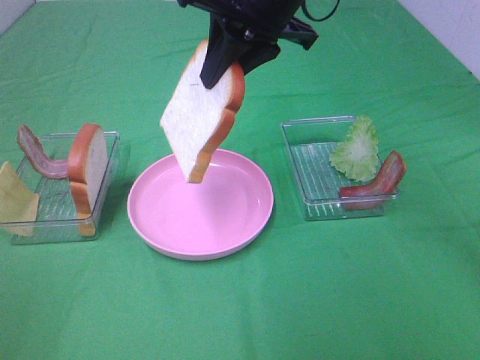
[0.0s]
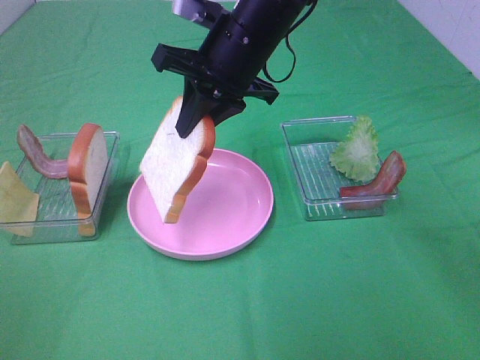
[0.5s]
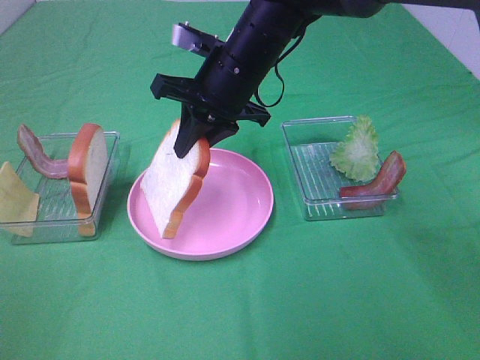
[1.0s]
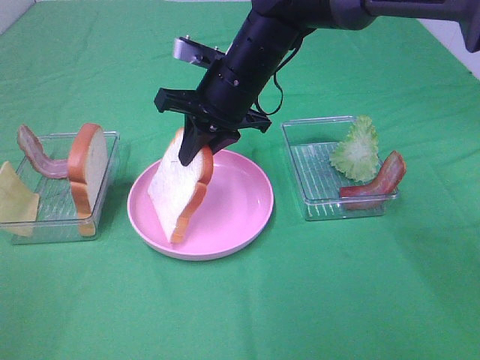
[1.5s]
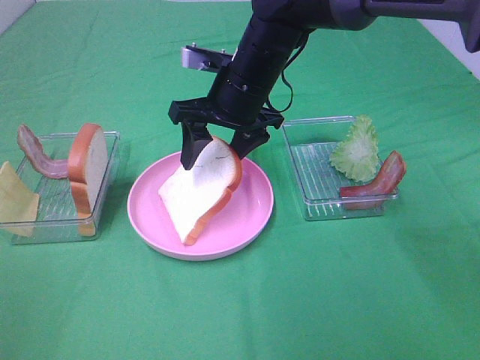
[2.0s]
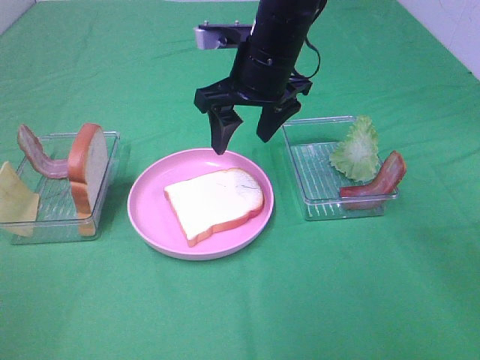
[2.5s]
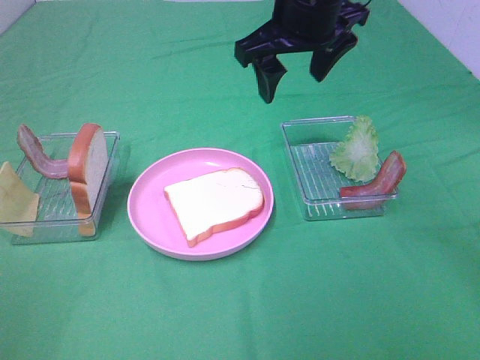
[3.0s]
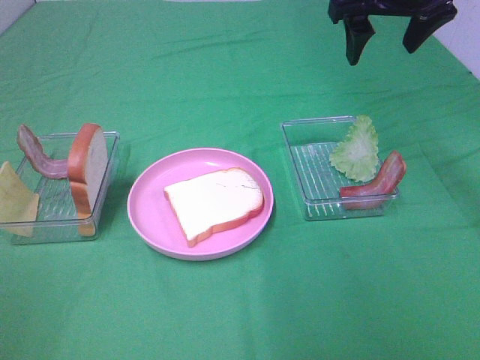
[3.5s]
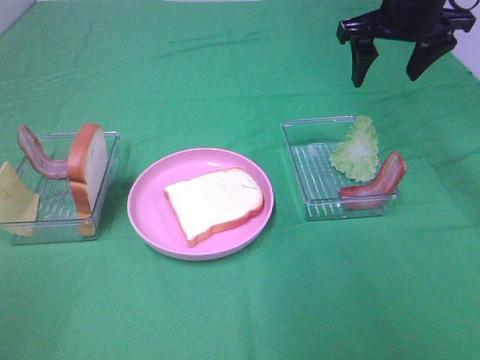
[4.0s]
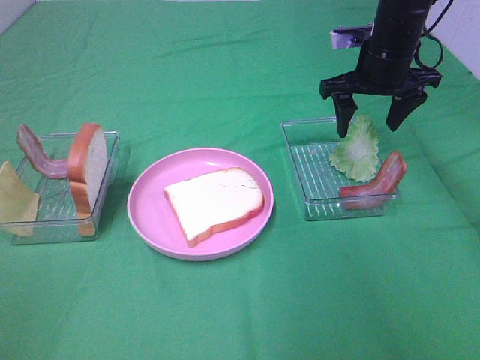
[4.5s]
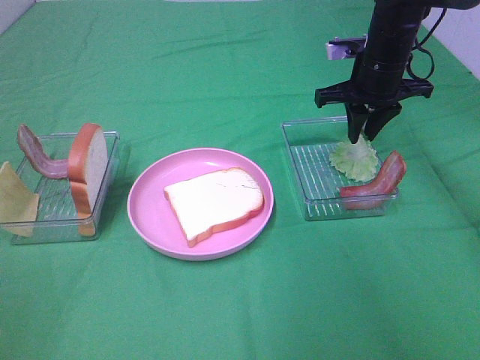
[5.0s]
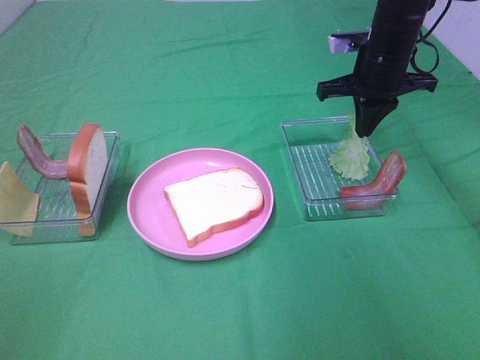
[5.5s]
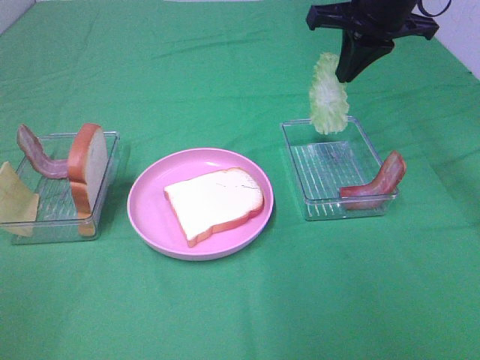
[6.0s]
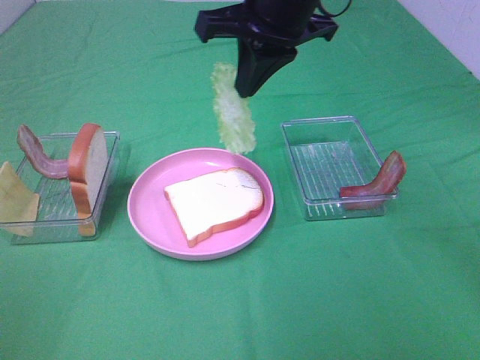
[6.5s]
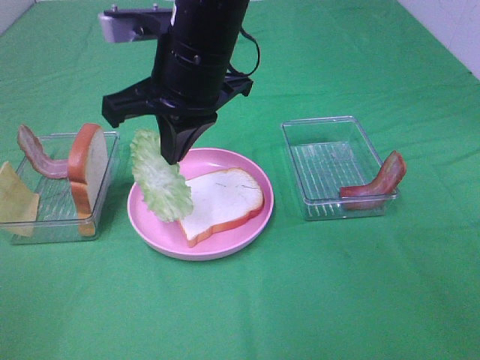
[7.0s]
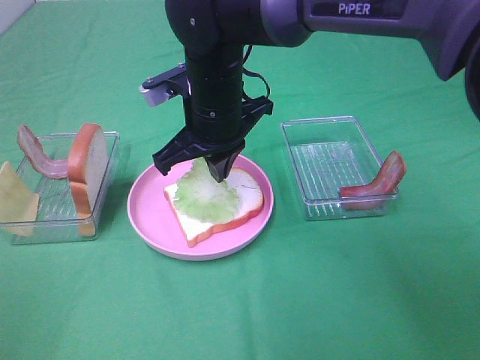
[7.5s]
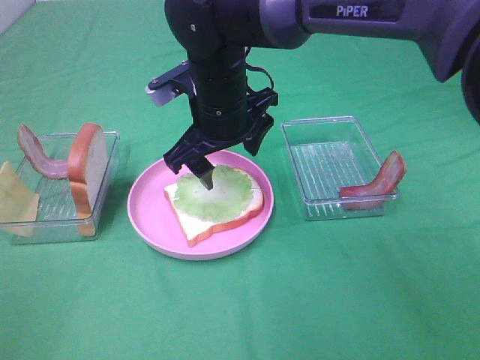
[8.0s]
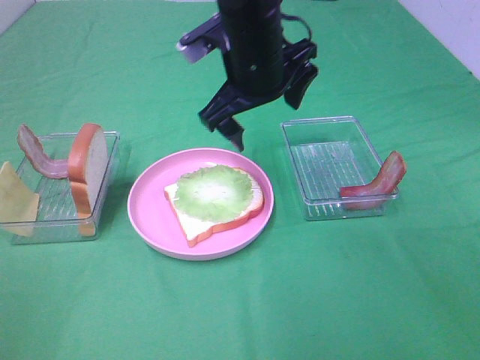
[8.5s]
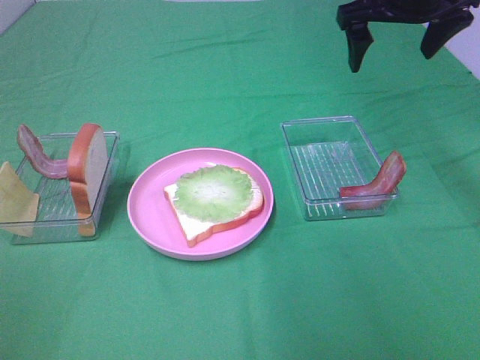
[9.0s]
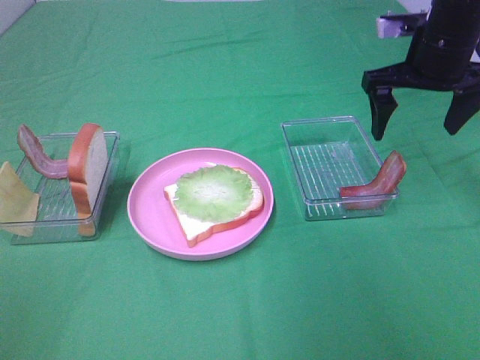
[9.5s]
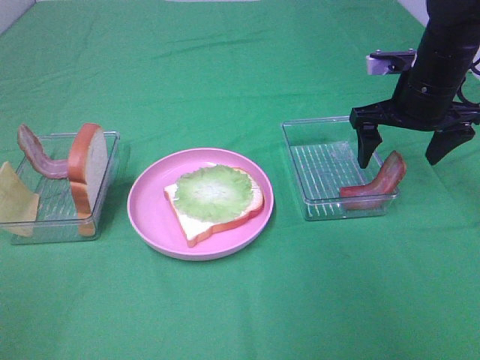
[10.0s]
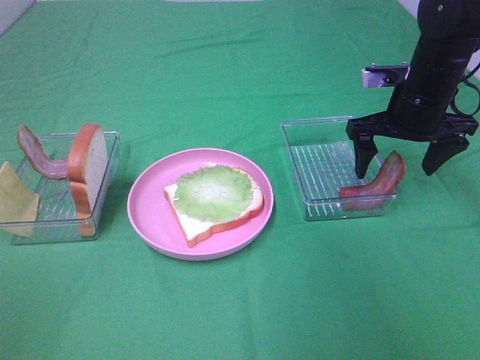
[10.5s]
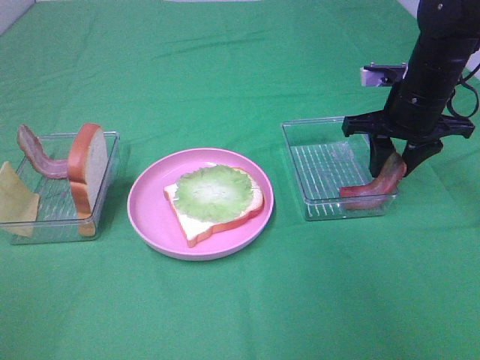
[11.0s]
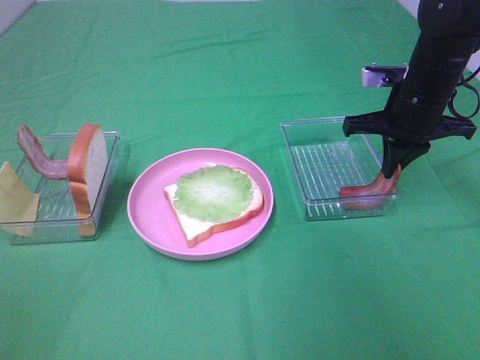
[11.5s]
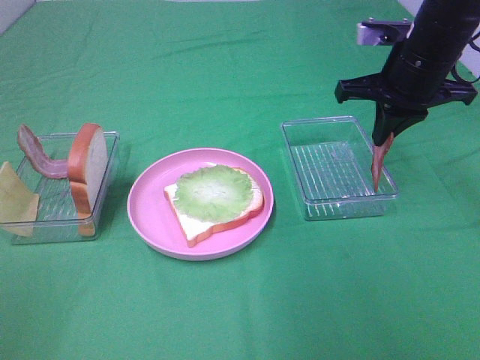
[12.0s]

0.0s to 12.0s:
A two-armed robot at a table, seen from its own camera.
Task of the whole recording: Make sandwiches.
Step, 0.0s to 2.0s: Right hand:place the bread slice on the plate.
Step, 2.5s to 5.0s: Right hand:grab the lettuce slice.
Step, 5.5s to 8.0s: Right hand:place the lettuce slice on the bread slice.
Step, 8.5s to 11.0s: Right hand:grab the bacon.
0.0s to 2.0s: The right gripper shifts approximately 10 cm downward, and opens its fingers.
2.0s to 4.0s: The right gripper is displaced to the right and upward by approximately 20 cm.
4.0s to 6.0s: The right gripper travels downward and back again, approximately 10 cm each way, and closes its fingers.
6.0s to 8.0s: The right gripper heads to the left and downward, covering approximately 20 cm, and opens.
8.0s to 10.0s: The right gripper moves to the right, approximately 25 cm.
10.0s to 12.0s: The right gripper shifts by approximately 5 cm, and closes its fingers.

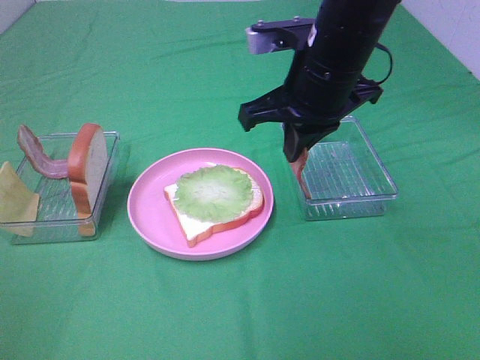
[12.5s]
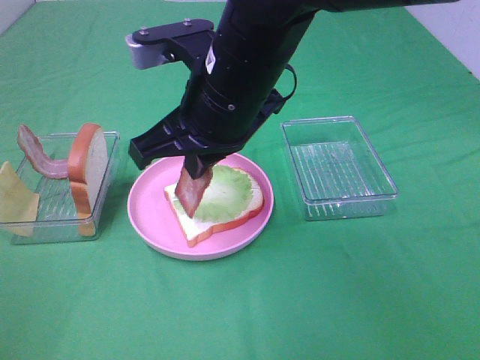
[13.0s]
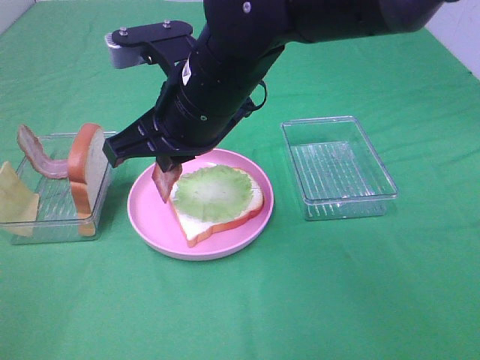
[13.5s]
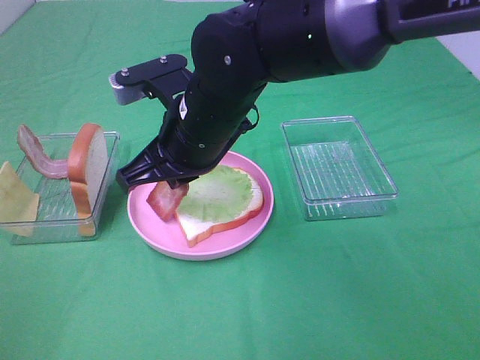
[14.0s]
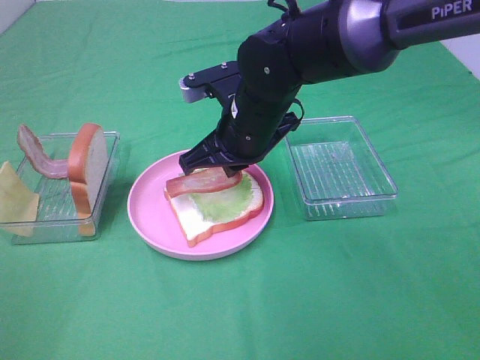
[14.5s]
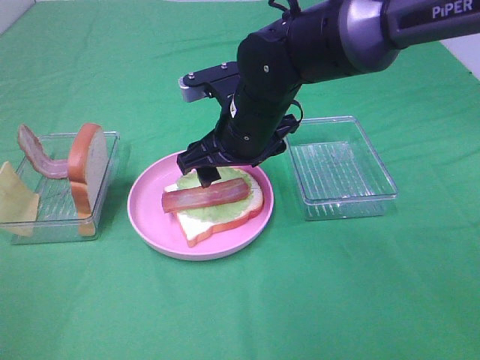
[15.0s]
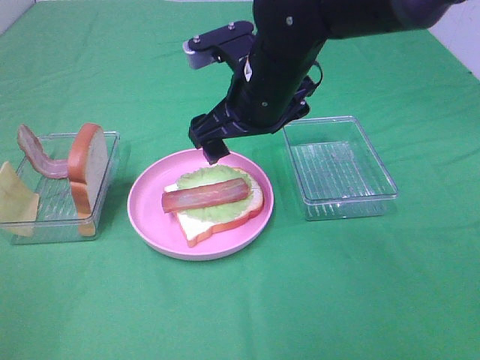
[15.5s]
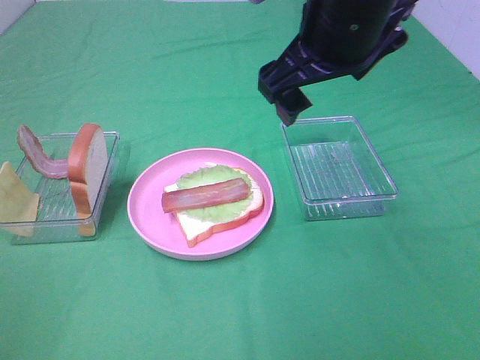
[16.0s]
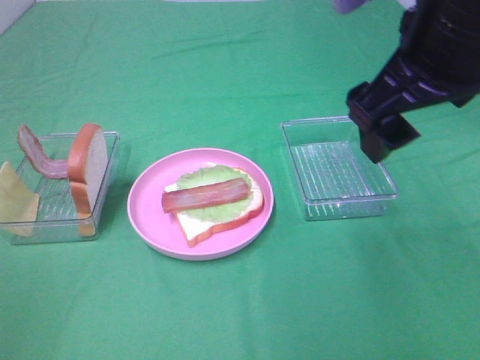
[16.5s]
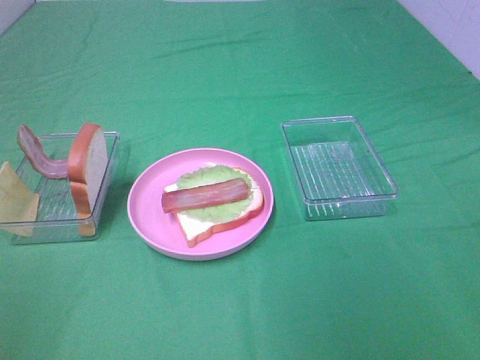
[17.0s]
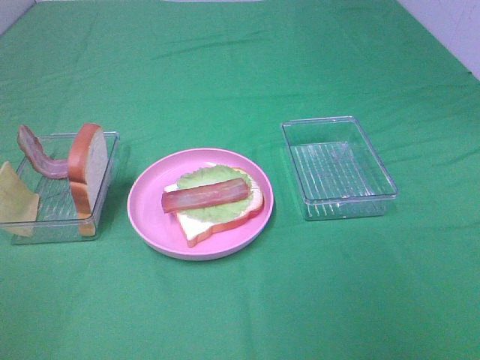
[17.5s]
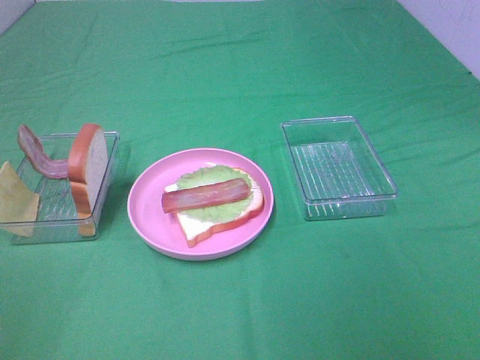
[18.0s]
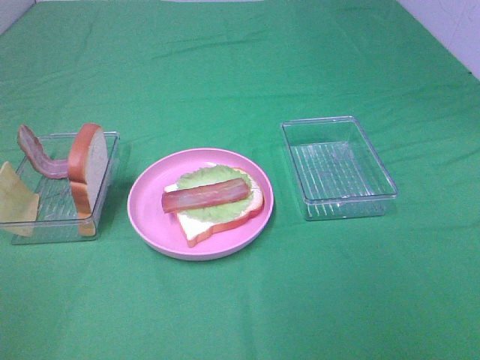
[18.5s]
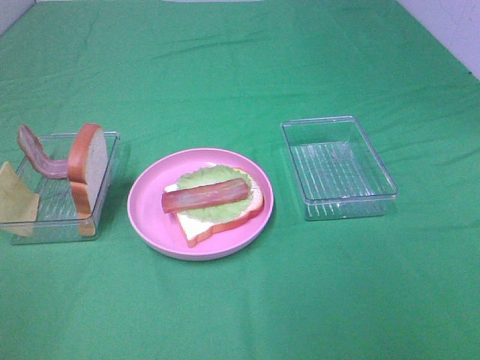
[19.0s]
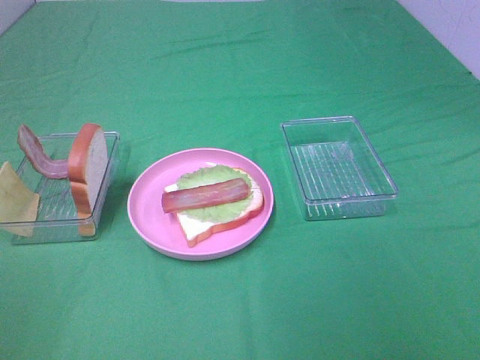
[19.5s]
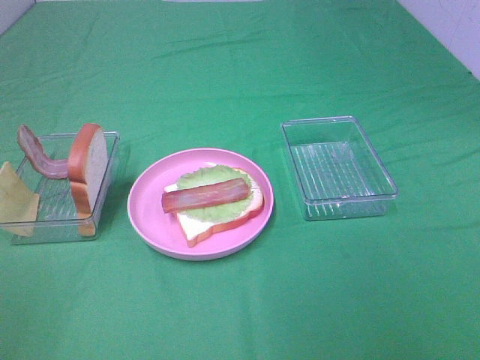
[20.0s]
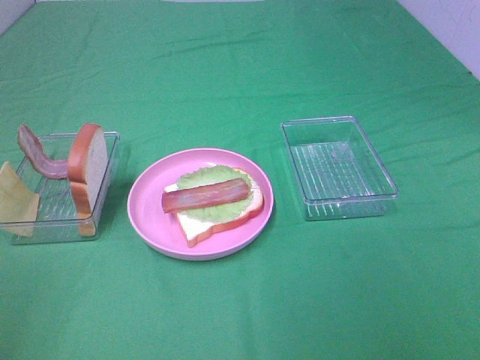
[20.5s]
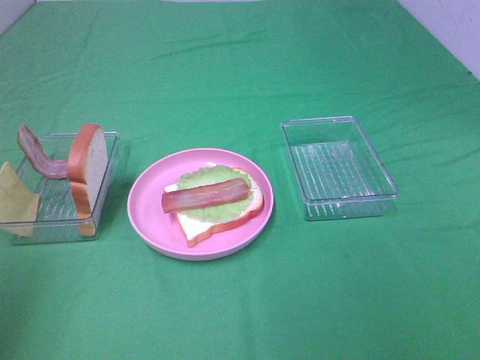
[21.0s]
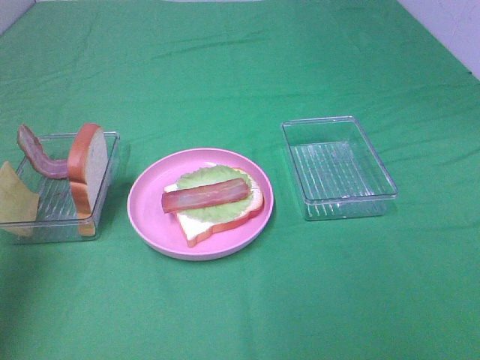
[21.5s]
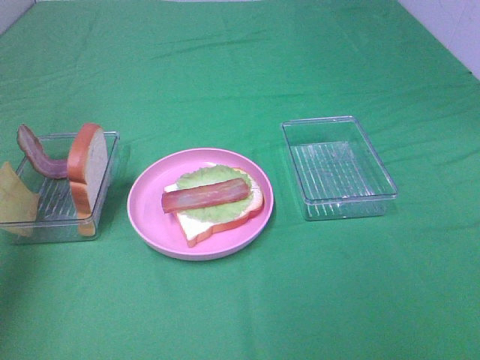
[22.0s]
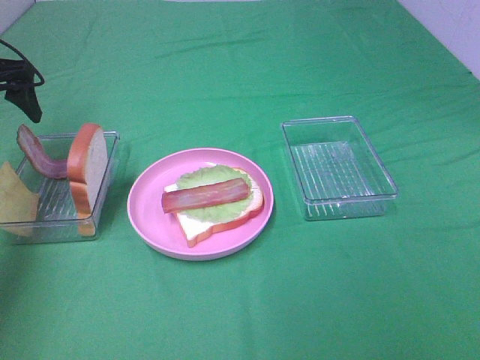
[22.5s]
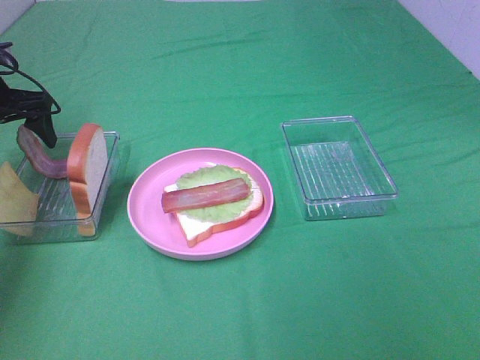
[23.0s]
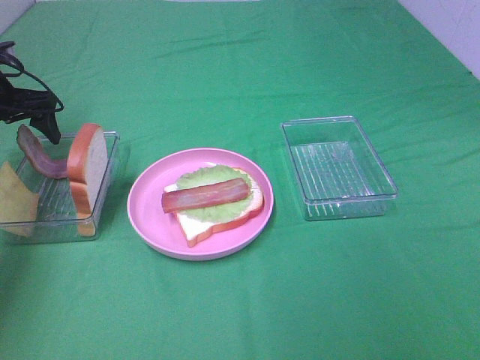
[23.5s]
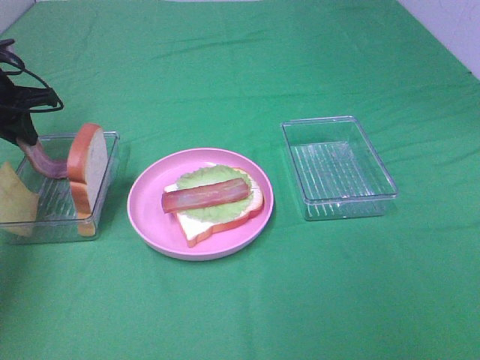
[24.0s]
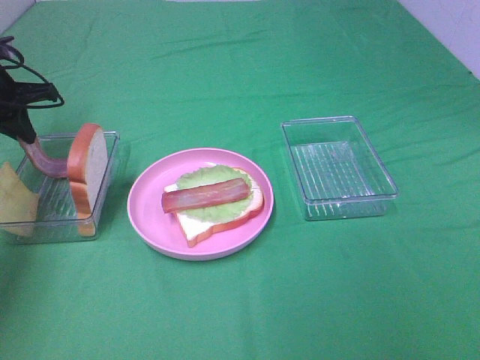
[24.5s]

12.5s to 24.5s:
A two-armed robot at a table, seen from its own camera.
Task of the whole recording: Make sandwiches.
Step, 12.5s to 15.0s: Right hand:place bacon on lettuce slice.
Step, 15.5s to 24.0s: Left hand:grab the bacon.
12.5s to 14.5s: The right gripper moves downward and to the left, approximately 10 cm.
14.5s to 16.5s: The right gripper goes some 25 cm upward, to the right and backward, and opens its fingers.
16.5s to 18.5s: The right gripper shifts about 30 cm backward and to the right.
20.5s to 22.5s: The left gripper goes roughly 40 cm forward.
22.5s to 24.5s: The left gripper closes.

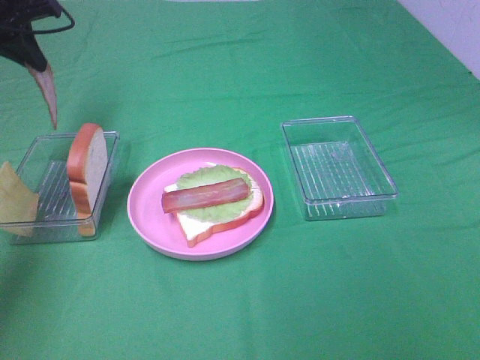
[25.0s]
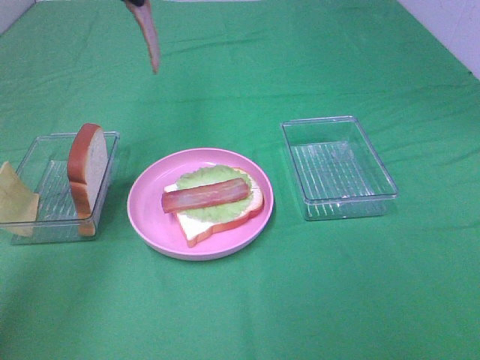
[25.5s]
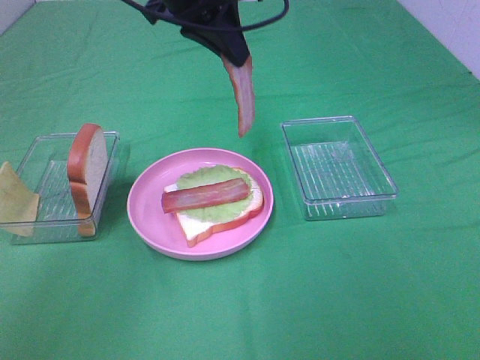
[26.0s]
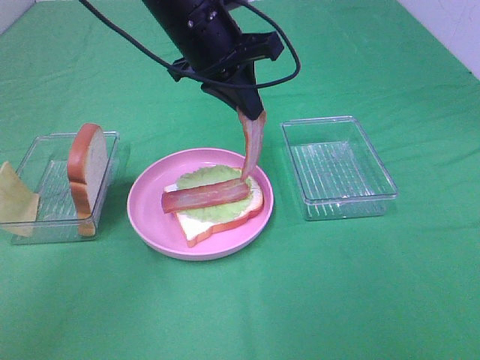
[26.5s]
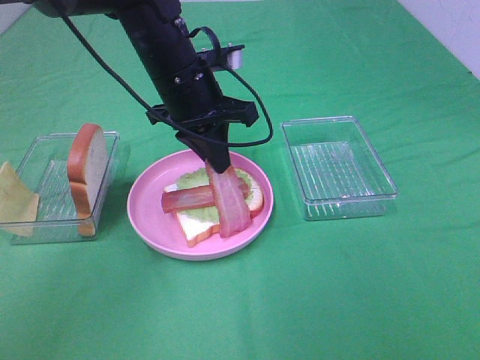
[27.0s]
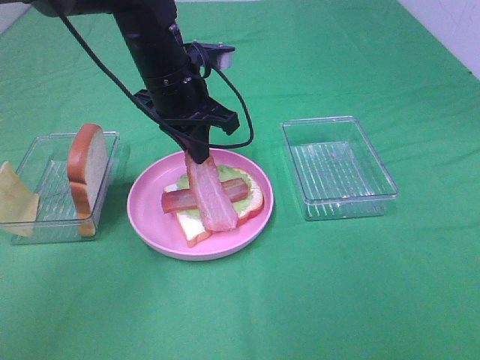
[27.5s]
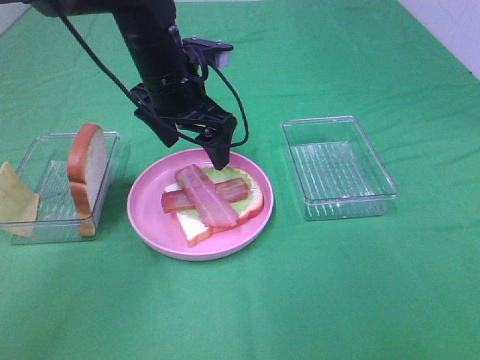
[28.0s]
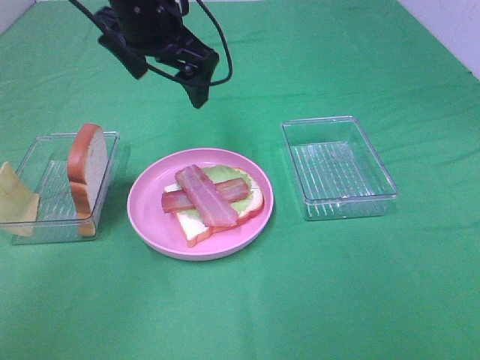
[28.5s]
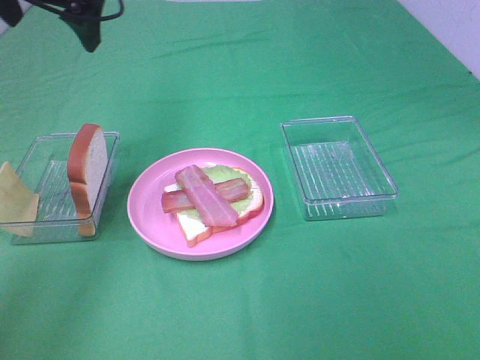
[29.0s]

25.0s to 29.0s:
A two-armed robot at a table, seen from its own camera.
Task of the whole recording: Make sandwiches.
Step, 25.0s to 28.0s: Left hand:place bacon on bacon.
25.0s to 27.0s: The left gripper moves to the right, about 25 cm.
27.0s to 29.0s: The left gripper shifts approximately 20 cm upward and to the left, and opens.
